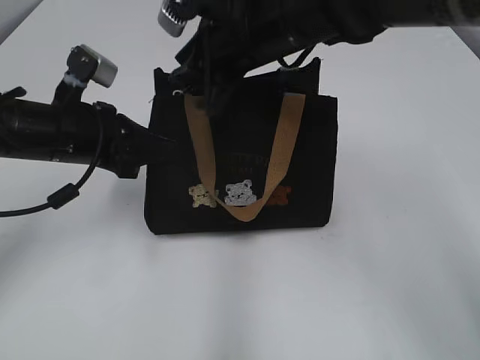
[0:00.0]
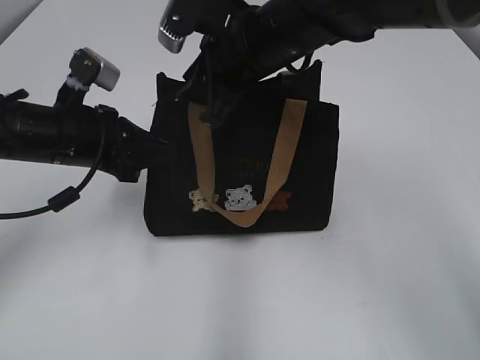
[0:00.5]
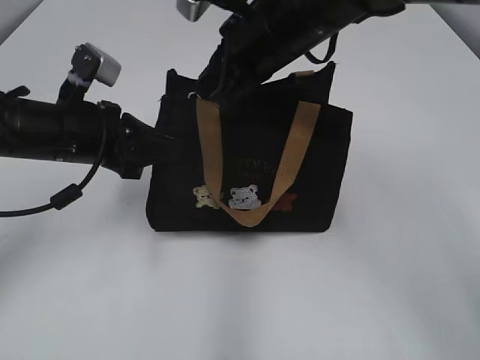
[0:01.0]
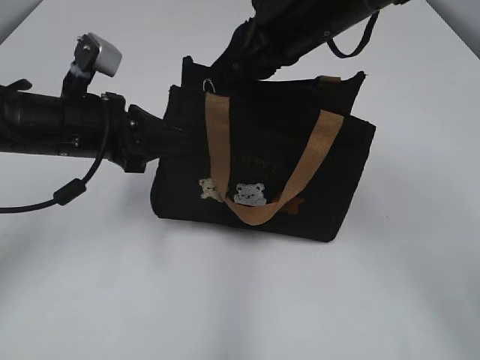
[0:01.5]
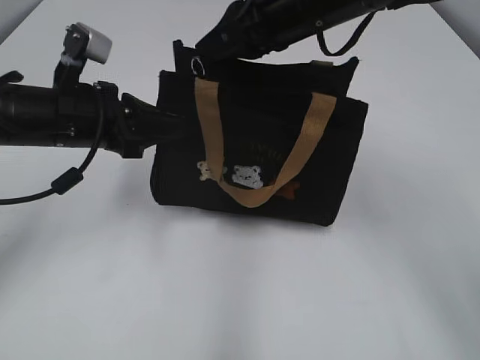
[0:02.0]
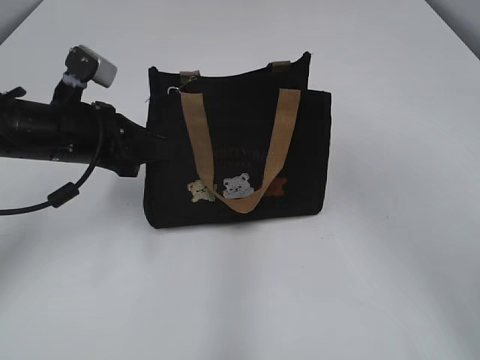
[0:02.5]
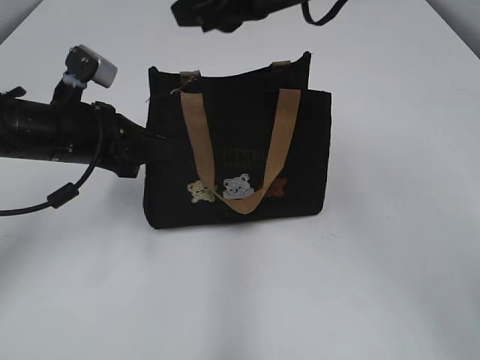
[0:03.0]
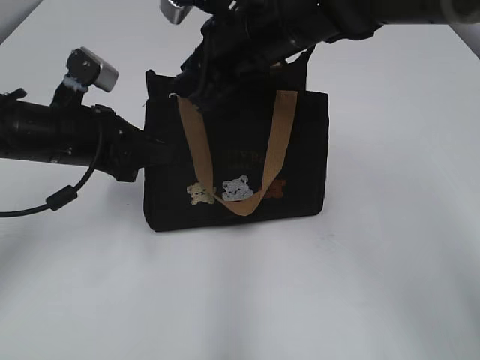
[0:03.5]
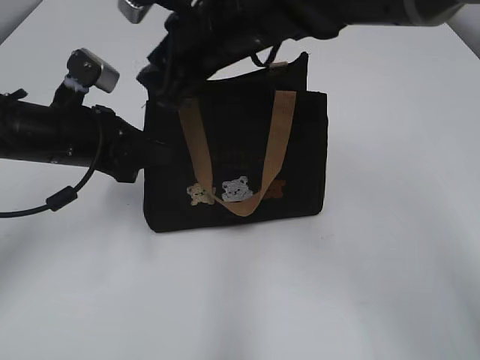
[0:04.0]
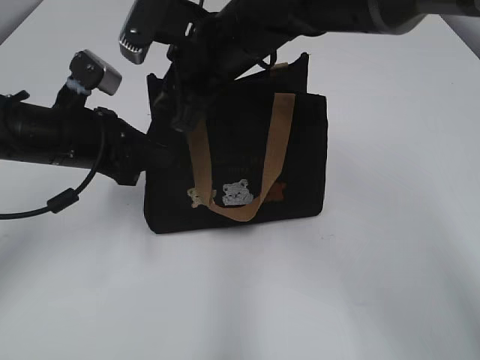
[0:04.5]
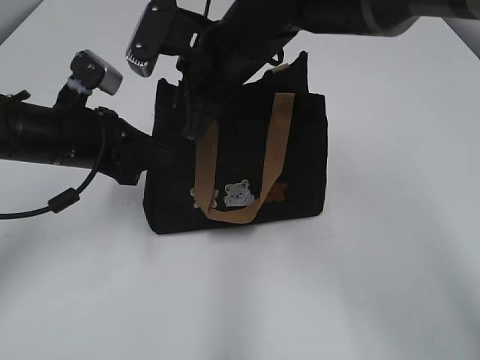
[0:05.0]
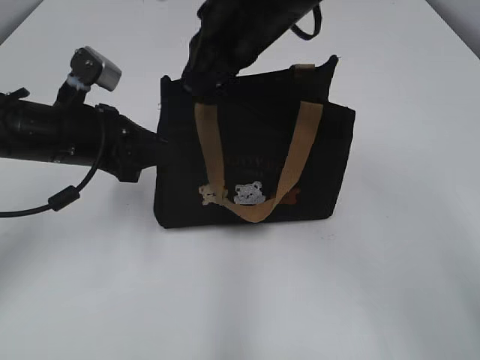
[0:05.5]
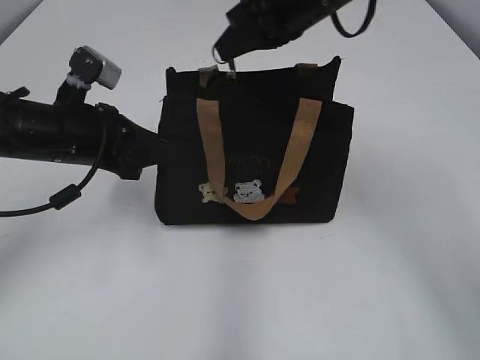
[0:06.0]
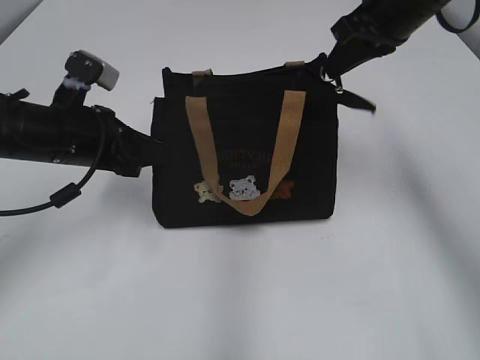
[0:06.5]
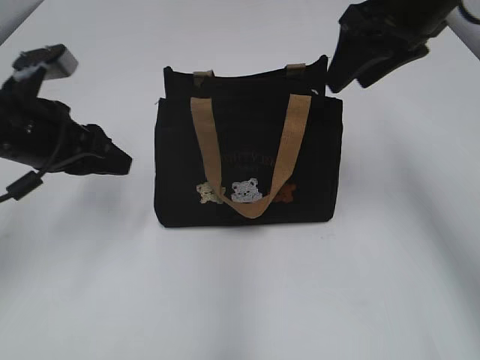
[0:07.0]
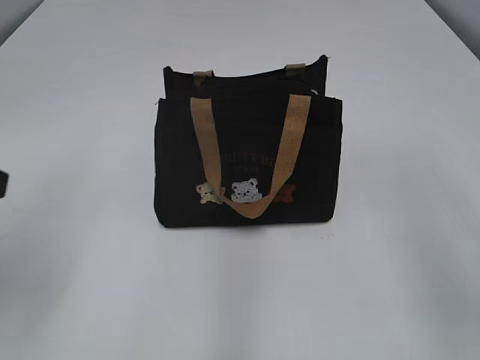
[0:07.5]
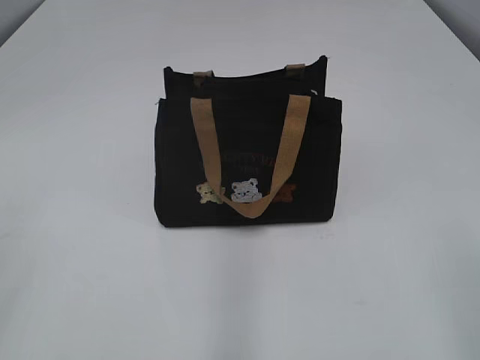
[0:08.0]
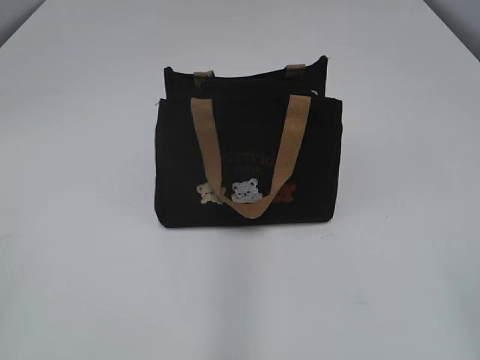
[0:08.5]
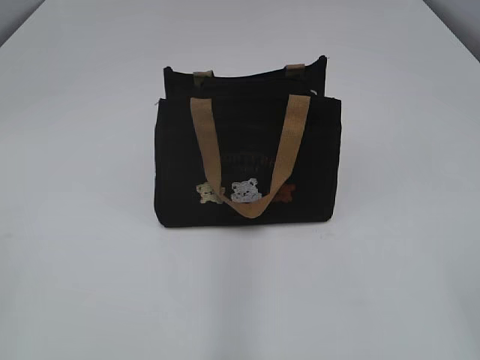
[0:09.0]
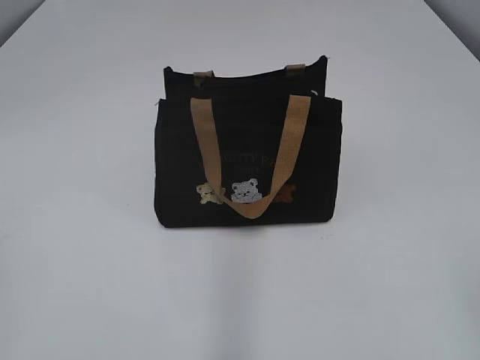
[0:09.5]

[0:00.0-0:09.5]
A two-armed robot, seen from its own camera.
Step, 0:00.0 to 0:06.5: Pull open the zipper with your right hand.
0:00.0 to 0:02.0: The right gripper moves approximately 5 cm, and closes.
0:02.0 to 0:04.0: The right gripper moves to the left, about 10 cm, and opens.
0:04.0 to 0:05.5: The right gripper closes its fingers.
0:05.5 to 0:07.5: The right gripper heads backward and to the right, covering about 30 cm, and opens up. Meanwhile the left gripper moves backward, upward and to the left, about 20 cm.
0:07.5 to 0:09.5: The two grippers go about 15 cm backward.
